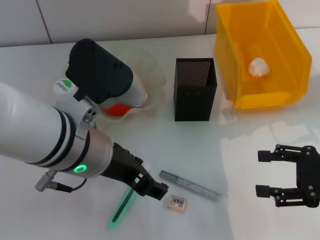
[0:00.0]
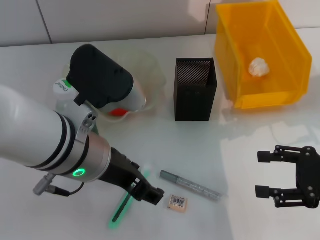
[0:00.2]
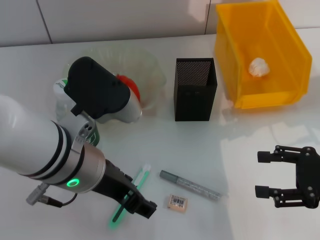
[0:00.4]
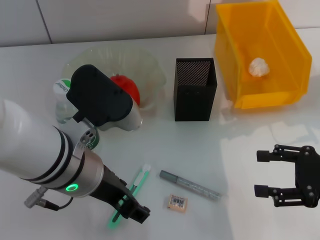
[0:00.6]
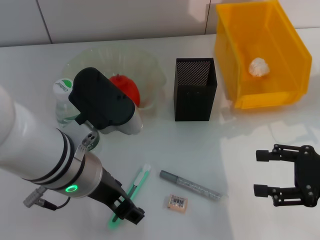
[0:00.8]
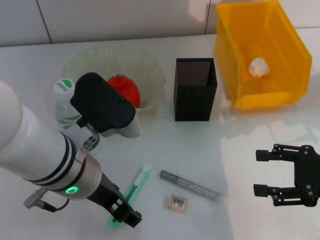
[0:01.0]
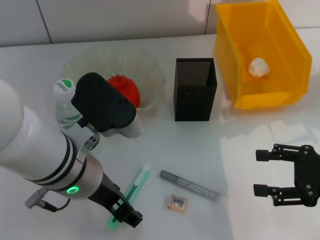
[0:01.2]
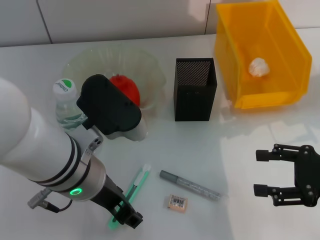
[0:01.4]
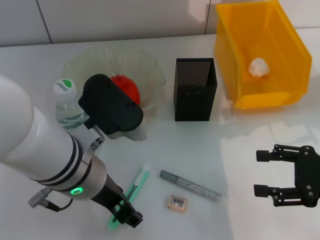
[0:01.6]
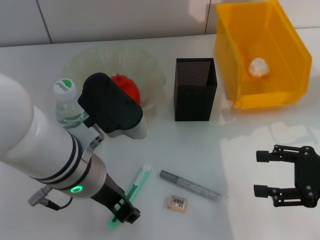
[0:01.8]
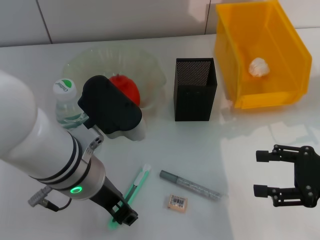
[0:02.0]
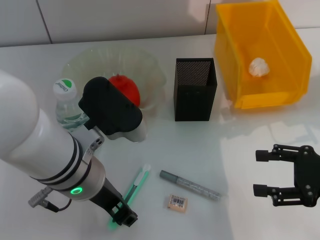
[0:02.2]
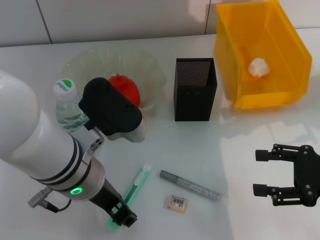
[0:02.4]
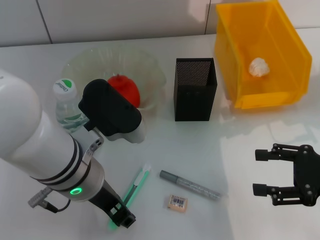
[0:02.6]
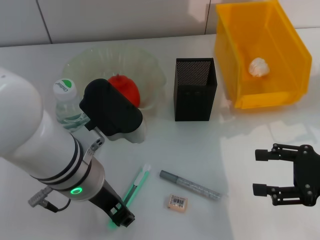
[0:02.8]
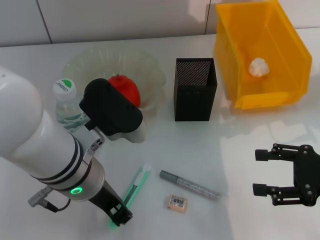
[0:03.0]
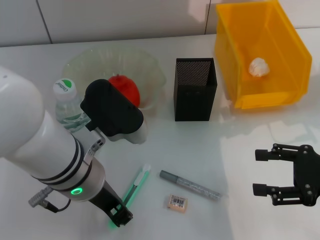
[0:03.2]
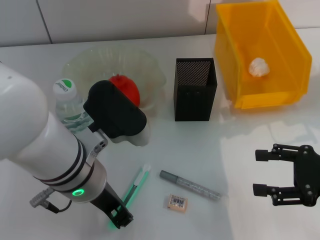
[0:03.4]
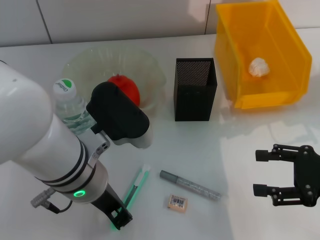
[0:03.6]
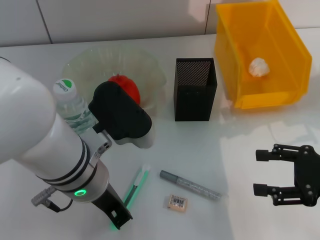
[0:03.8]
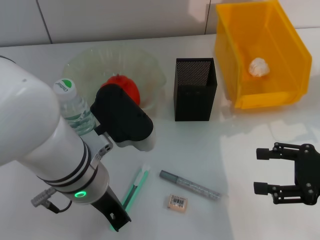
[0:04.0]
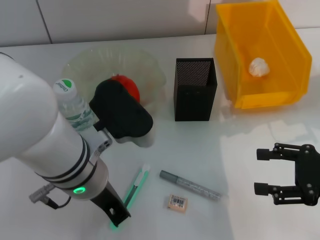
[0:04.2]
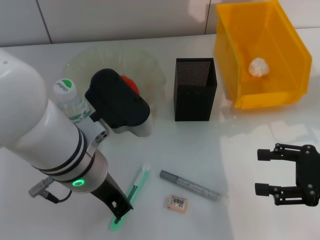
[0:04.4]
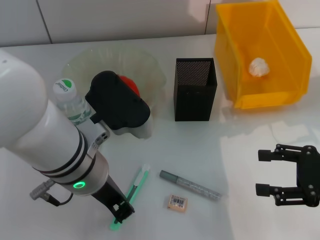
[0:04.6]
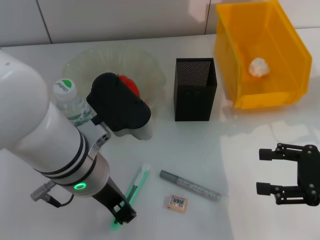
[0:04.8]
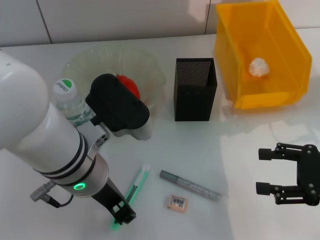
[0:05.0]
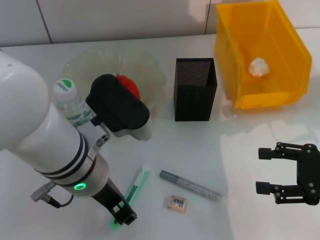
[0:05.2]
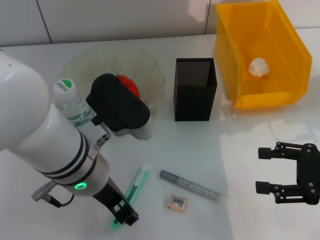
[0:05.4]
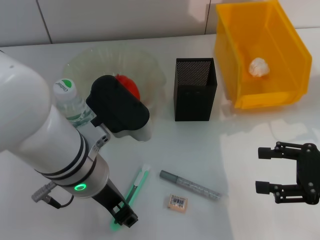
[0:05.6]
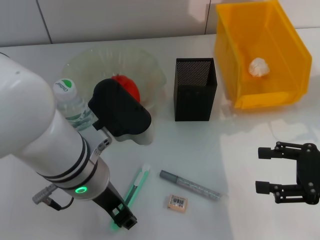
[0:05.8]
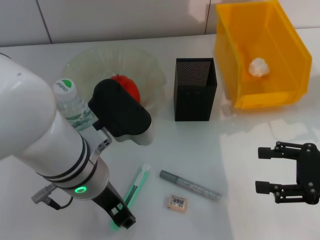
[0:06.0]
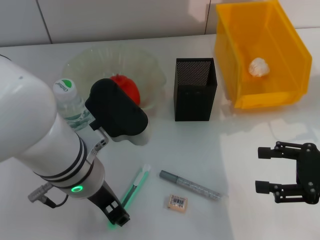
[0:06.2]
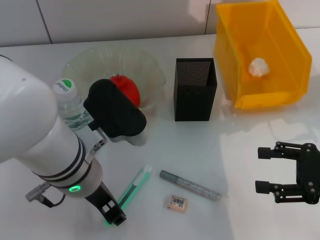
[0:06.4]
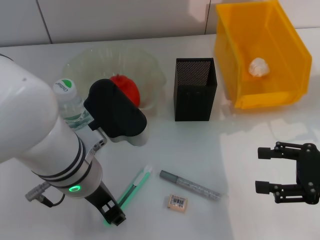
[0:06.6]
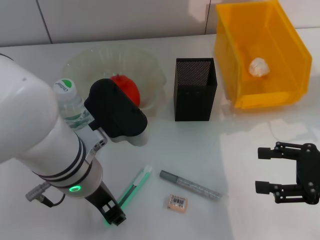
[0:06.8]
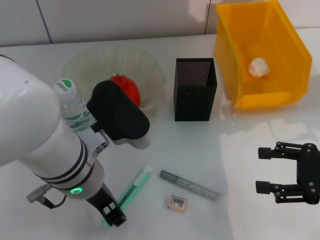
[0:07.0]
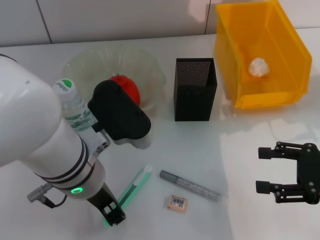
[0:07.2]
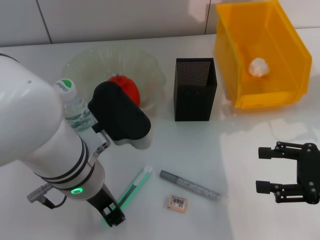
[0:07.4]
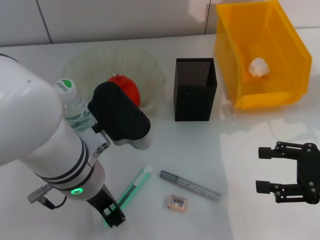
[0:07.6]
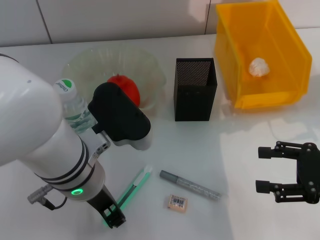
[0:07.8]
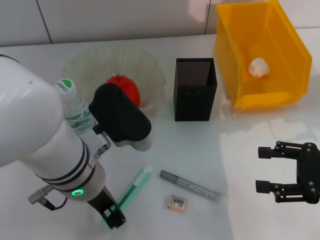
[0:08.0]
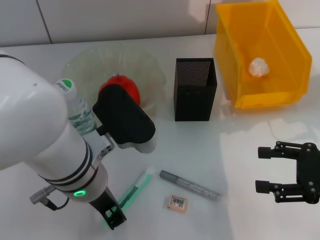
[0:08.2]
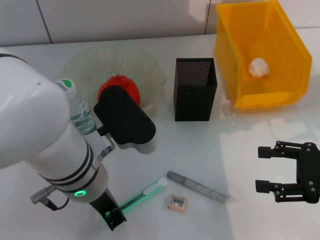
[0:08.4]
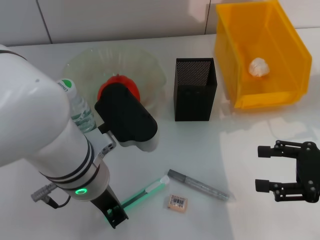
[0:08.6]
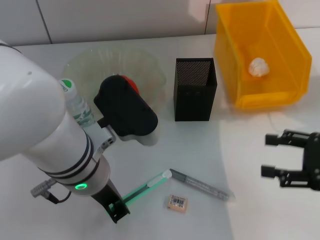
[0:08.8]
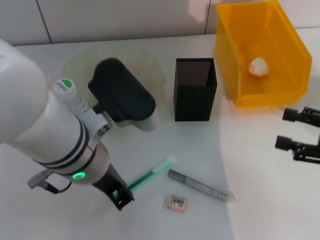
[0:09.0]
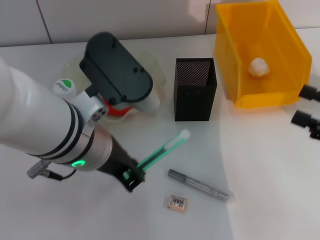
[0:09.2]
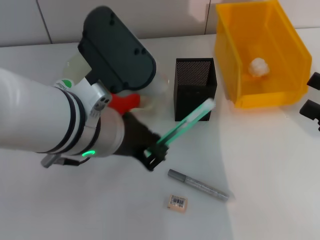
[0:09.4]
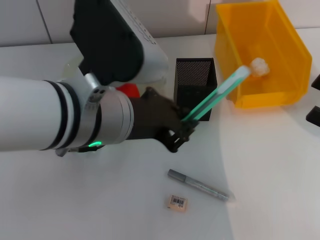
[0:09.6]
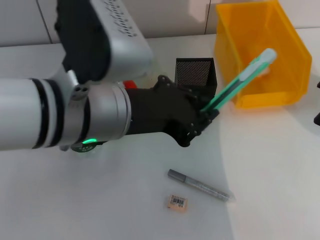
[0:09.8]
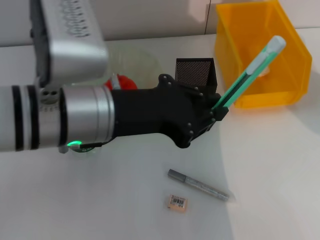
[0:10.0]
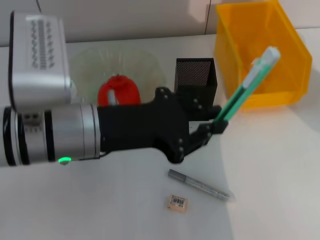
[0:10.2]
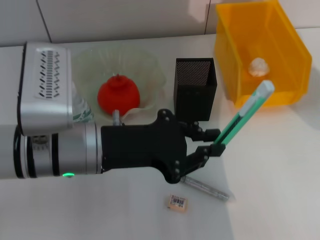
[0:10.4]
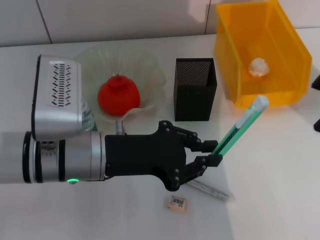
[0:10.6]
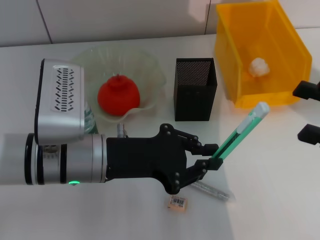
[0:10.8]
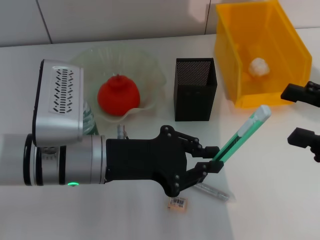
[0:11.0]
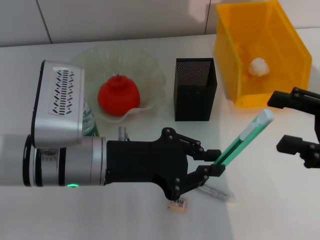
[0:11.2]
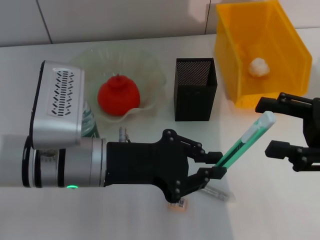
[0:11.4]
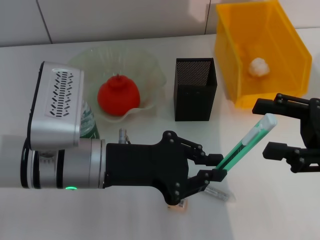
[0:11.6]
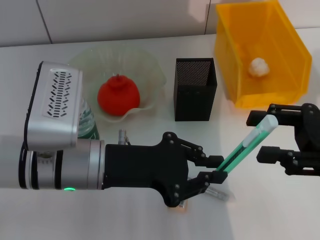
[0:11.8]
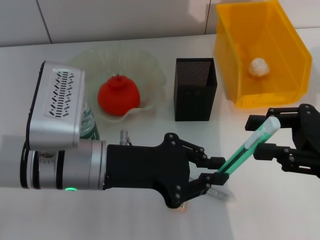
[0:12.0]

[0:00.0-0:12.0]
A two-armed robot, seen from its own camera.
Step, 0:00.0 to 0:08.0: Grab the blue utility knife with the left hand.
0:00.0 to 0:01.6: There are only small adjustments of the grippers.
0:01.6 to 0:03.0: The left gripper closes.
0:03.0 to 0:04.4: The left gripper closes.
0:04.4 to 0:06.0: The left gripper opens.
0:06.0 to 0:07.6: Neither gripper changes place.
0:07.6 to 0:09.0: There are only small adjustments of the grippers.
0:10.4 to 0:12.0: The right gripper shifts roughly 5 cm to the left.

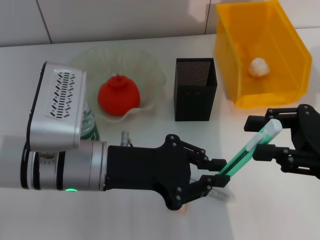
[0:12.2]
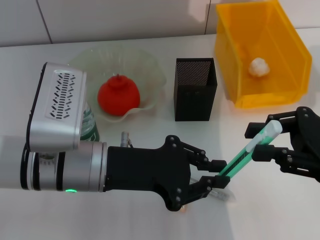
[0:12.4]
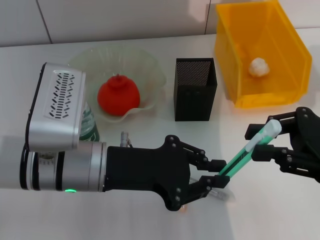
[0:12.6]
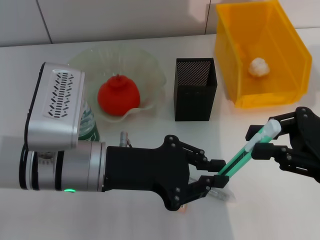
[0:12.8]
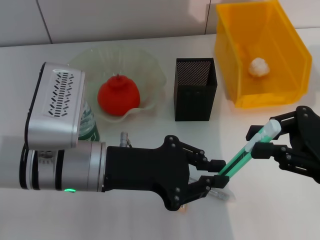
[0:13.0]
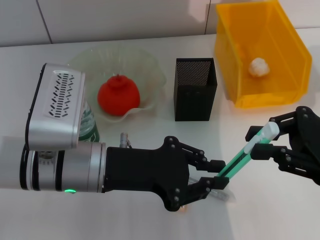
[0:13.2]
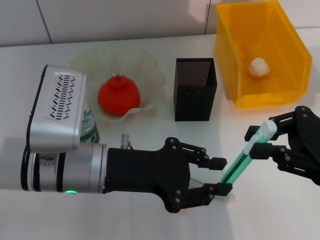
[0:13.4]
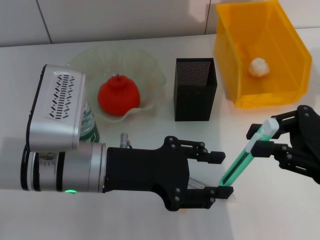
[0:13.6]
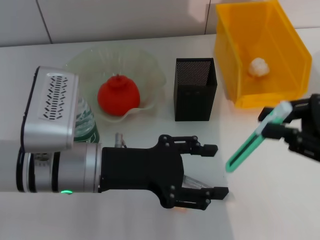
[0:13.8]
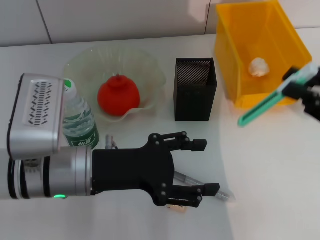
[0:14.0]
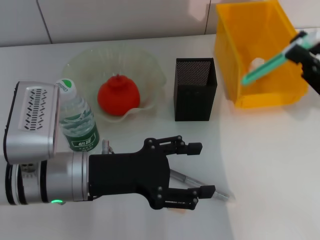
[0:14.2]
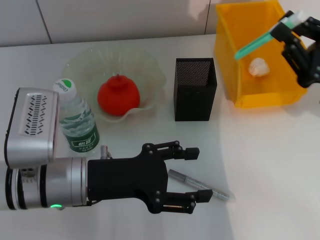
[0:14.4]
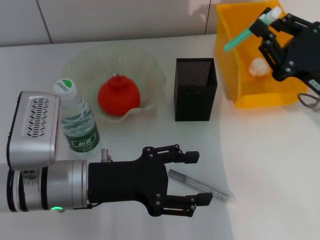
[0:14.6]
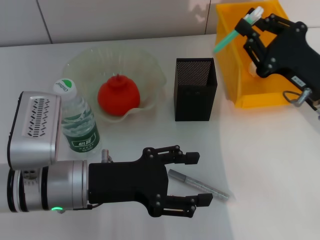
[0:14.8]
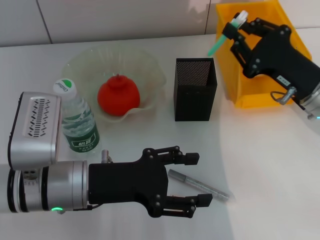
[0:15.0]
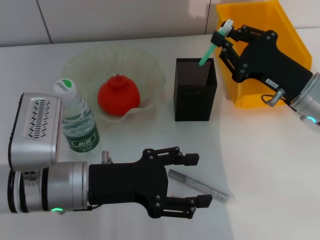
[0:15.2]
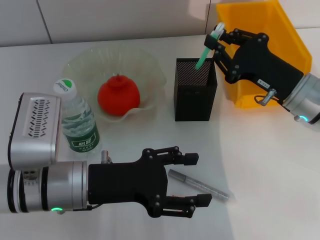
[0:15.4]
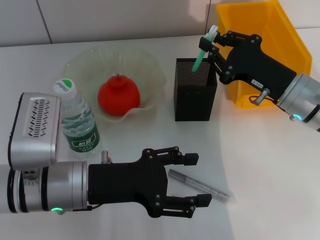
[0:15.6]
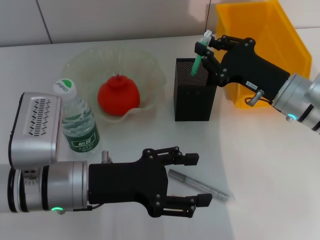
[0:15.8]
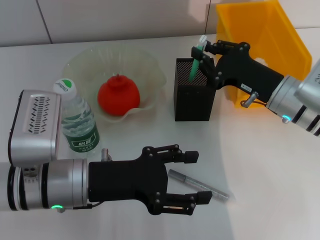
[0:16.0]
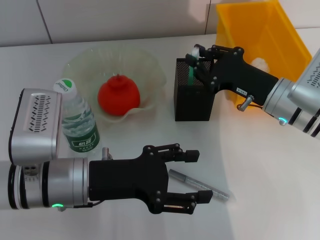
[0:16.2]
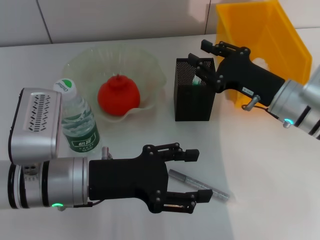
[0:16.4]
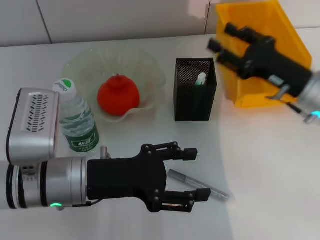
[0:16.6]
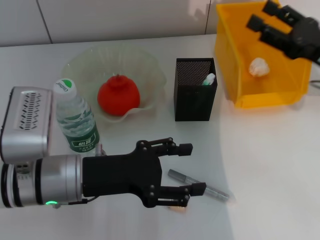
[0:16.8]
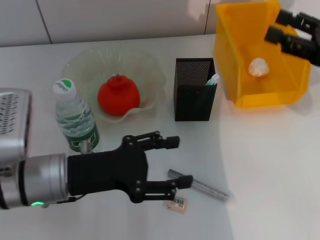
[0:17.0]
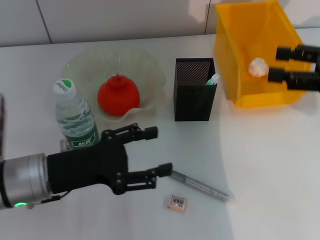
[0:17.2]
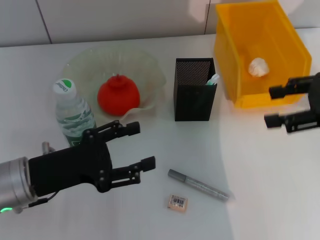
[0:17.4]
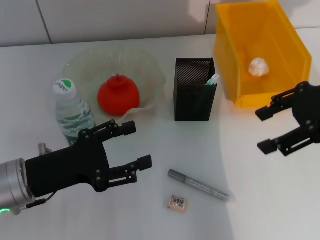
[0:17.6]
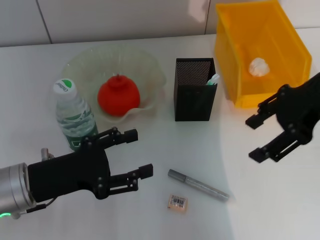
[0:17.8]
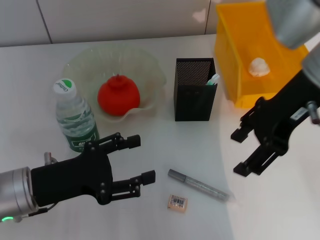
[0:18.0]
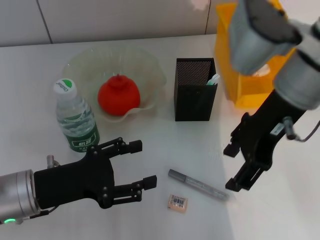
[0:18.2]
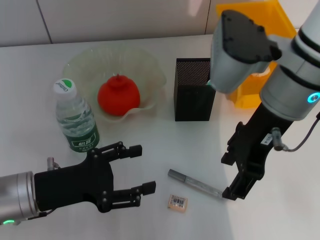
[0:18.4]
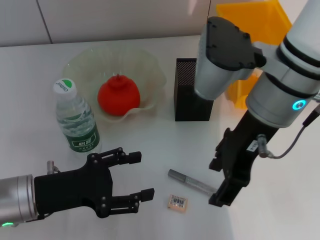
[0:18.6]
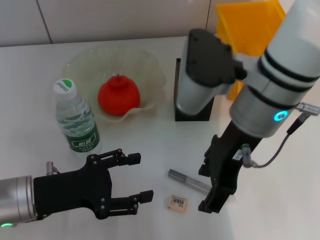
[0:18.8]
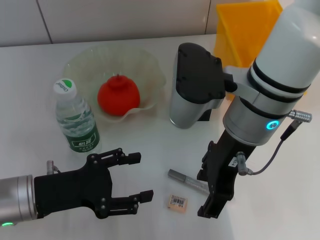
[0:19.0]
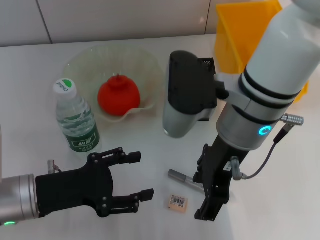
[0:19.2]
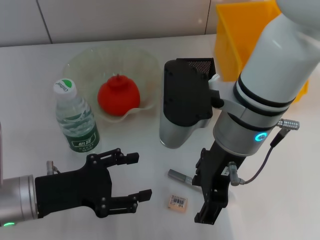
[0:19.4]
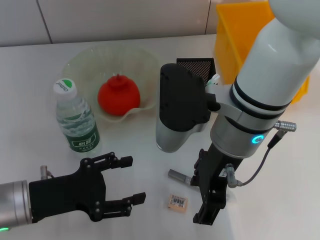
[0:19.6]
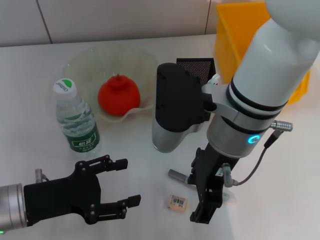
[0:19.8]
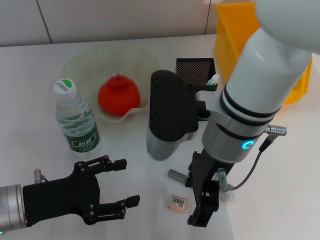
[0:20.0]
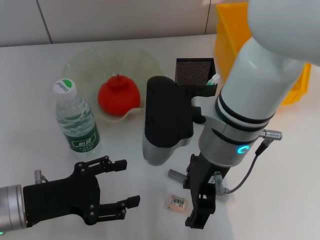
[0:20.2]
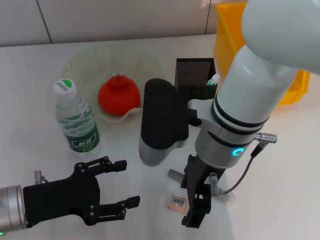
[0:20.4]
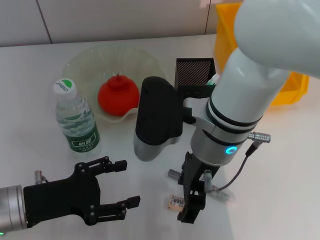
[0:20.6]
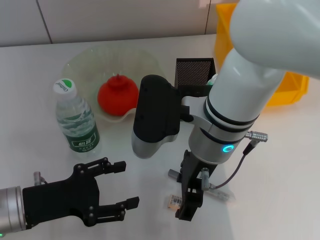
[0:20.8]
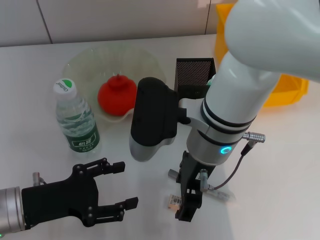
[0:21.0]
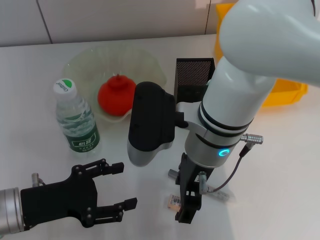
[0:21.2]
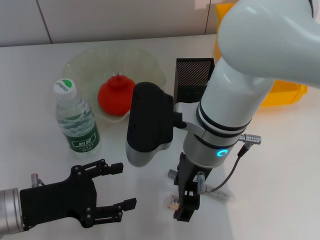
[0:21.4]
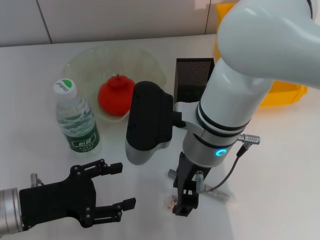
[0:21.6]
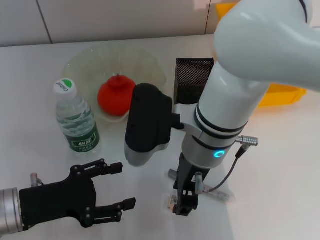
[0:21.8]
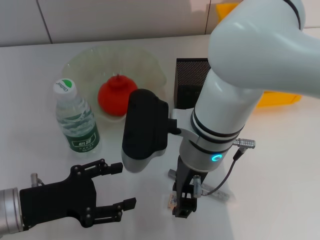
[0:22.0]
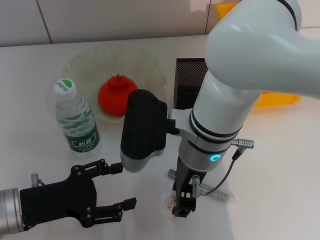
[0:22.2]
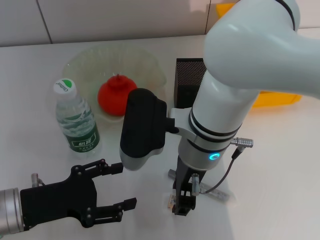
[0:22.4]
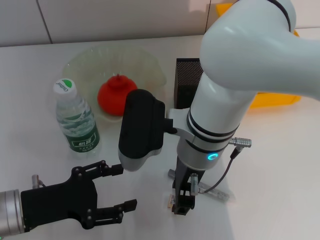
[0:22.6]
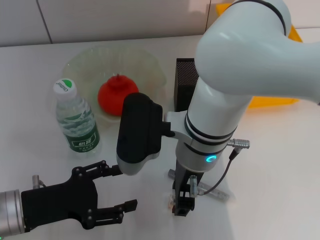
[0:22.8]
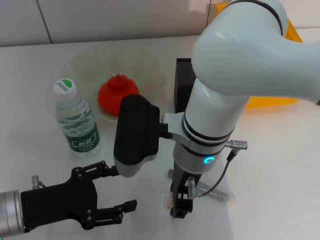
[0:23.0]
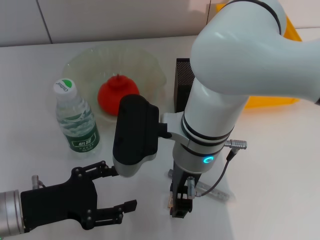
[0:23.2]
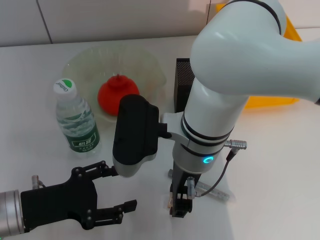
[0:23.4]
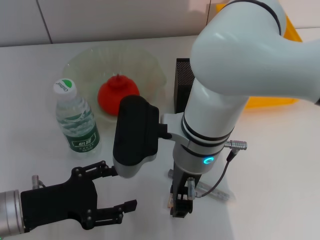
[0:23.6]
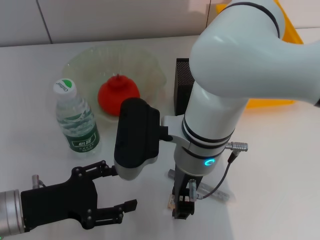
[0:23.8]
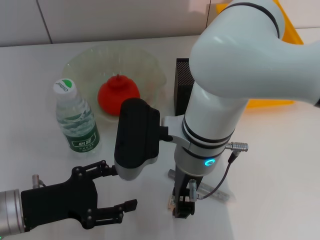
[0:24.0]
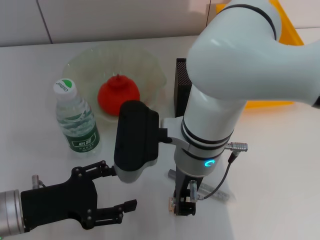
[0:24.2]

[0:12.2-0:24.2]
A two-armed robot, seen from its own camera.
Step, 0:13.4 to 0:16.0: Place the blue utility knife into the pen holder with the right hand.
0:12.2 to 0:13.8: The left gripper opens its fingers.
0:13.8 to 0:15.2: The left gripper opens up. The right gripper is displaced forward and to the left by about 10 cm.
0:15.2 to 0:16.6: The right gripper opens.
0:16.6 to 0:18.2: The left gripper travels to the left by roughly 5 cm; the right gripper is displaced upward and to the left by approximately 15 cm.
0:18.2 to 0:19.8: The right gripper is displaced to the left by roughly 10 cm.
0:21.2 to 0:22.6: The grippers move only a little.
0:22.6 to 0:24.2: Both grippers stay about where they are.
